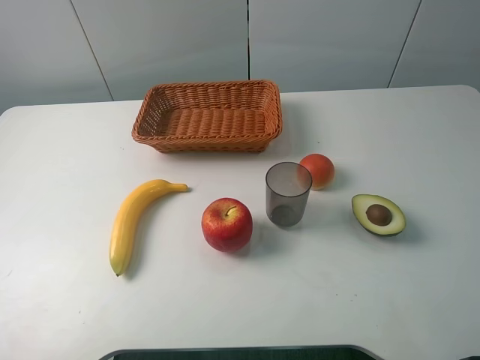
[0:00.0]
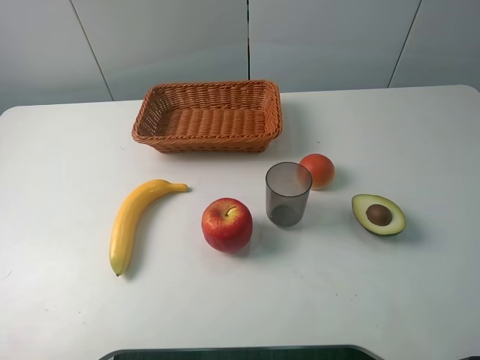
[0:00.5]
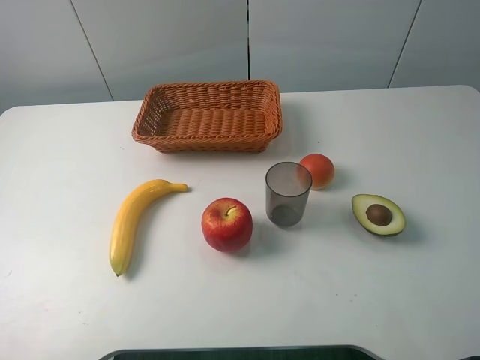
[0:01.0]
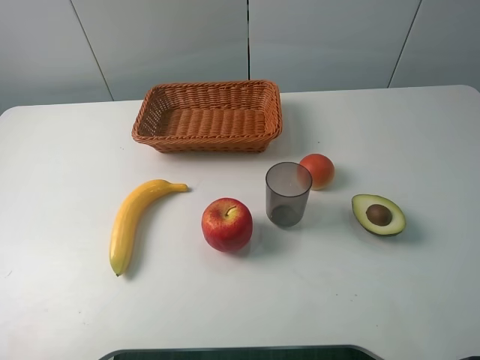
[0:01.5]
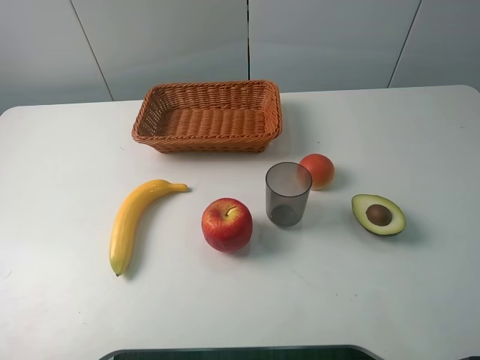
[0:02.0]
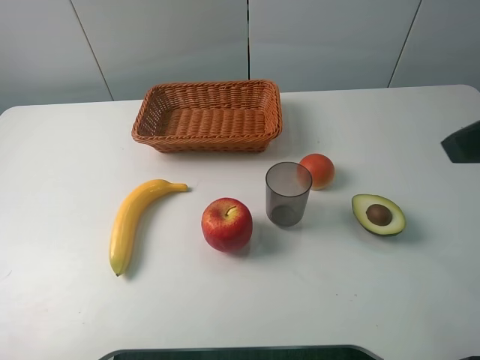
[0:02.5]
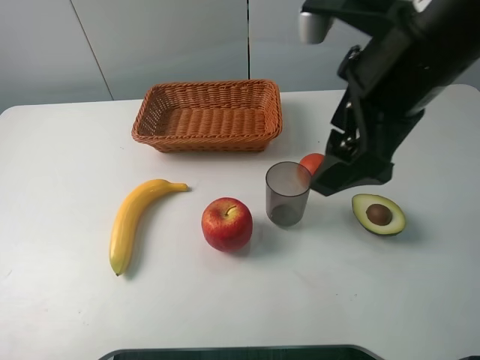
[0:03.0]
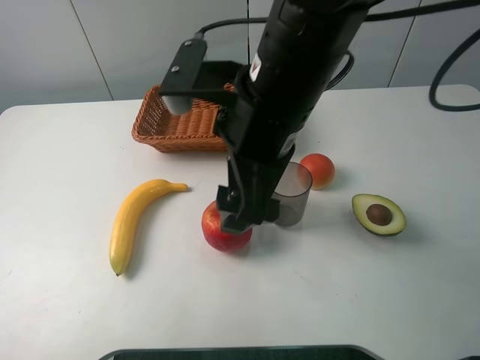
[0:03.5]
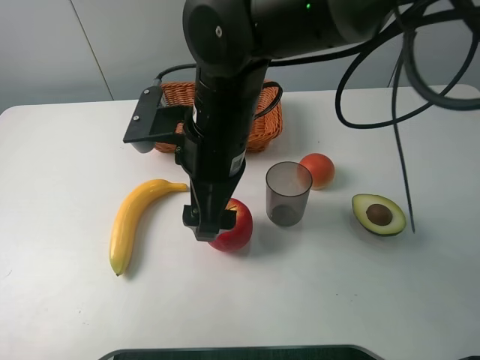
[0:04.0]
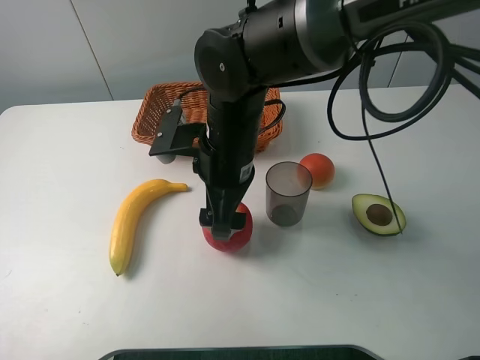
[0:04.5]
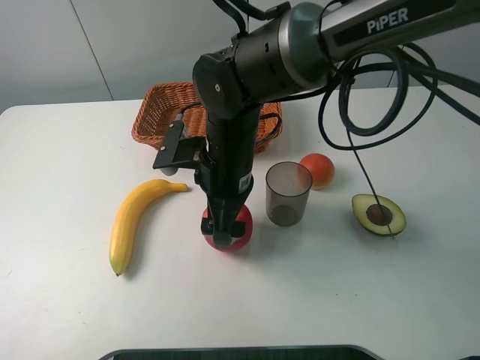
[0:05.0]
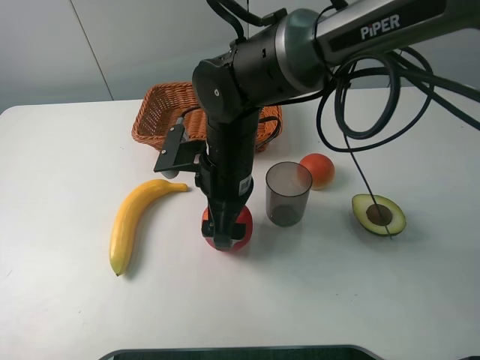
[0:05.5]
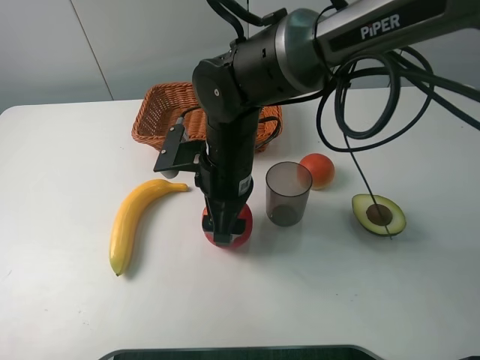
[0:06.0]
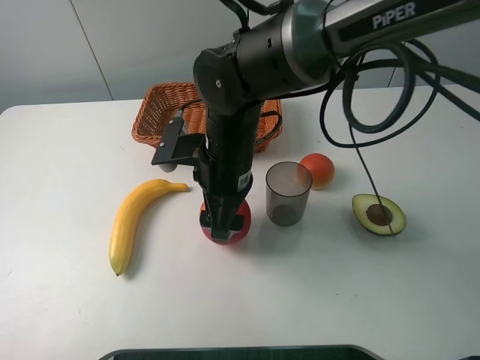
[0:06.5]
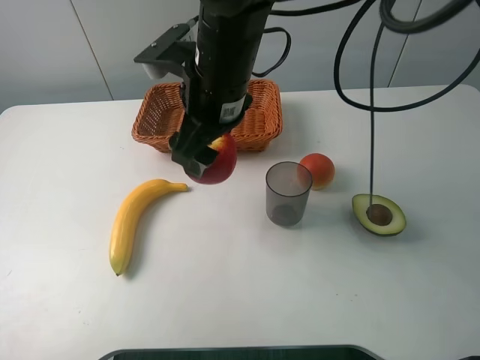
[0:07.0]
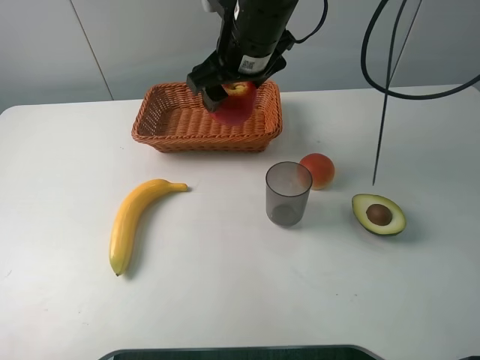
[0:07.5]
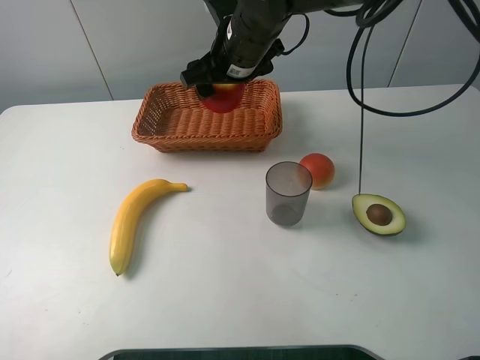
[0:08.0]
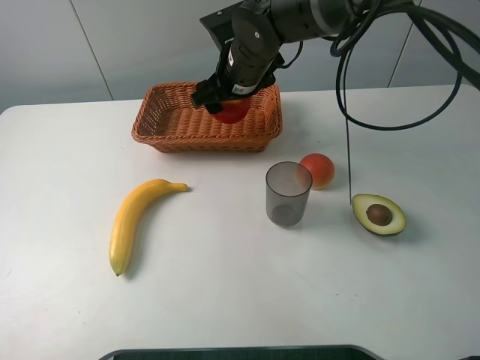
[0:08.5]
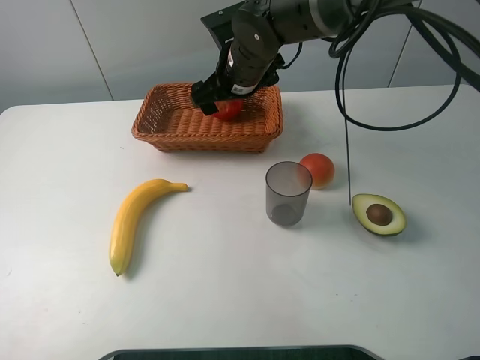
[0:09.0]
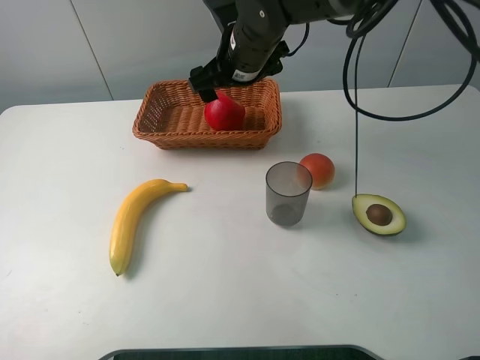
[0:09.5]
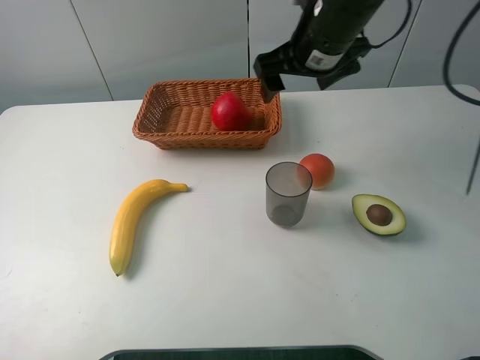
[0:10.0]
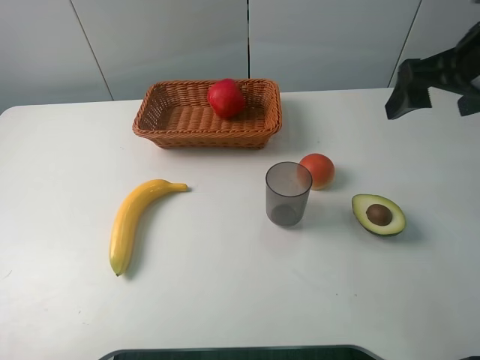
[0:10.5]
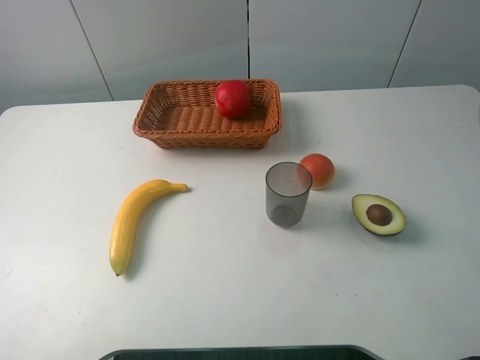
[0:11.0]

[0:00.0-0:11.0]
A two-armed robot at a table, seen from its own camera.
Task of the whole recording: randomly pick up an item from the table and put it in the basket.
Step, 0:00.0 to 0:06.0: Grasp the apple with the right gripper.
Step, 0:06.5 to 0:09.5: Place the apple into the basket with the right gripper.
0:02.0 to 0:03.5: The right gripper is displaced to the left and forward by roughly 35 cm.
0:03.5 to 0:05.5: The right gripper travels downward and forward by some 15 cm.
0:05.5 to 0:07.5: The right gripper travels upward and forward by approximately 15 cm, and closes up.
0:07.5 to 0:09.0: The right gripper moves downward, some 5 cm, and opens up.
0:09.0 to 0:11.0: The right gripper moves backward, to the right and upward, some 40 cm.

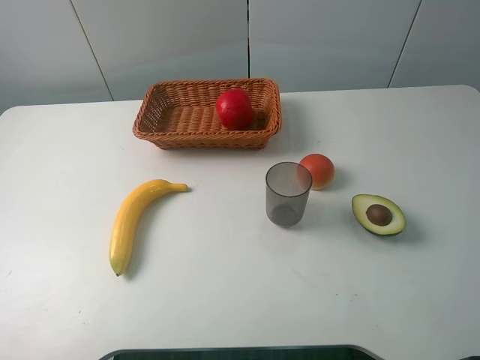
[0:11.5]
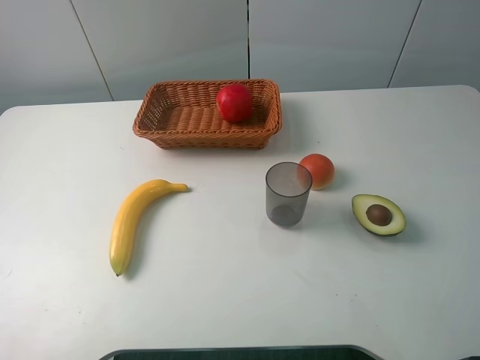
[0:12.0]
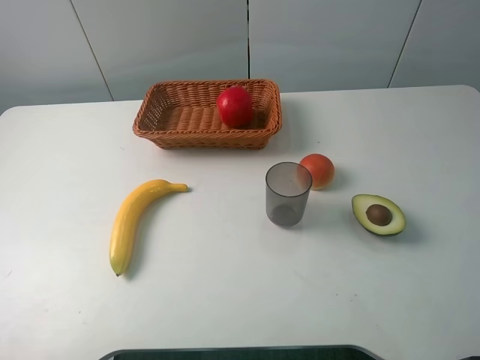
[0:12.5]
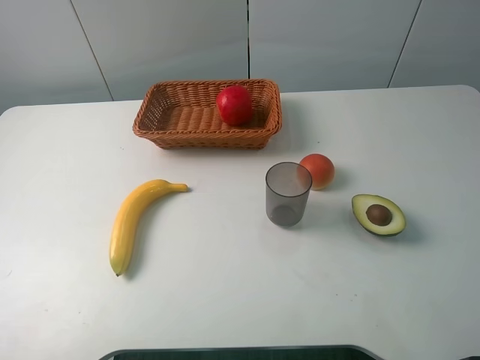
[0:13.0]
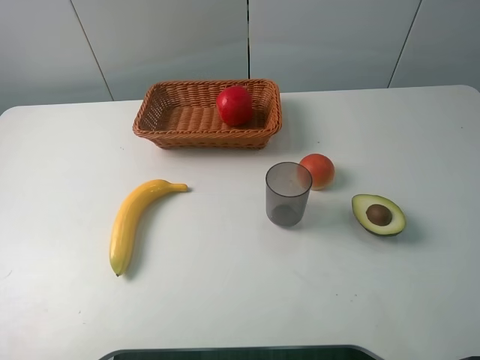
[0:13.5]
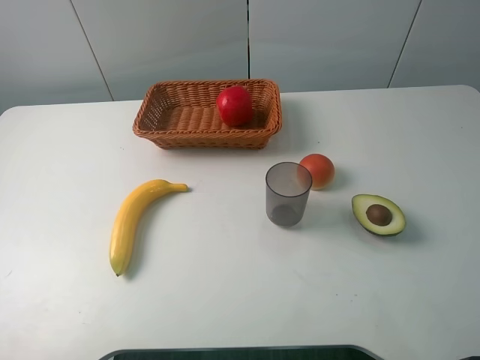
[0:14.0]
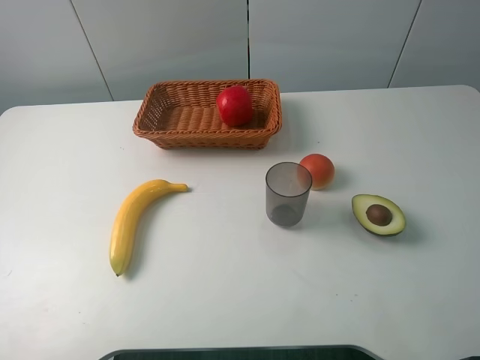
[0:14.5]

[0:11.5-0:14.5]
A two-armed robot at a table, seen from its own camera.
Task of the whole recording: randomly pick up an item from the table and put it in the basket.
0:13.0 to 0:14.5: Neither gripper changes place.

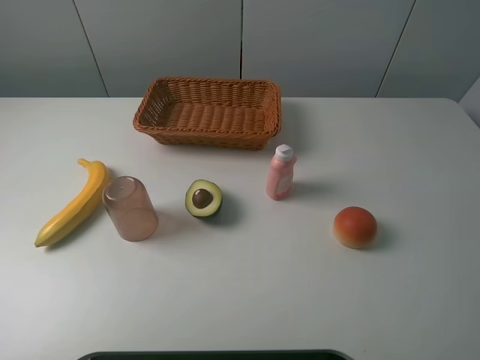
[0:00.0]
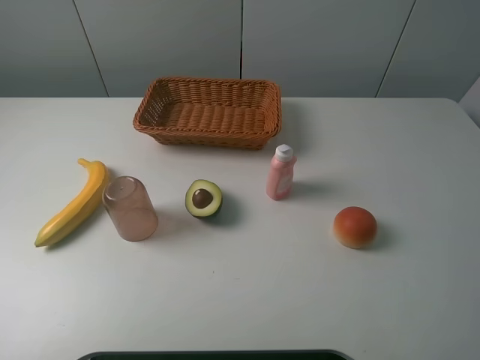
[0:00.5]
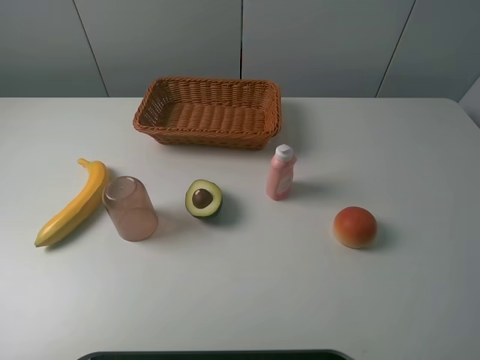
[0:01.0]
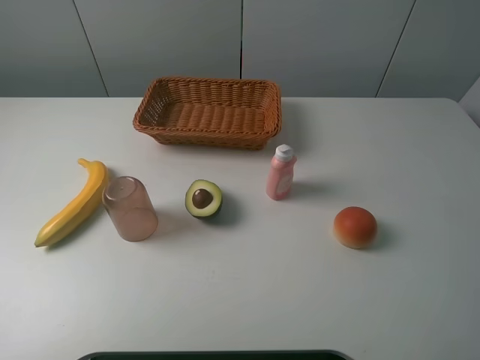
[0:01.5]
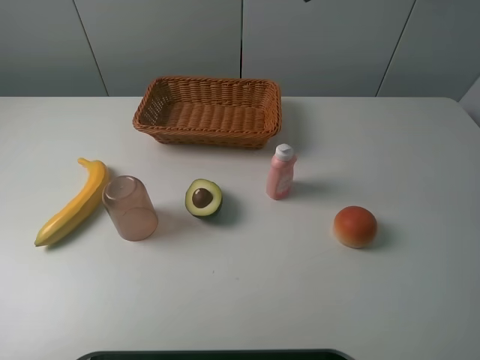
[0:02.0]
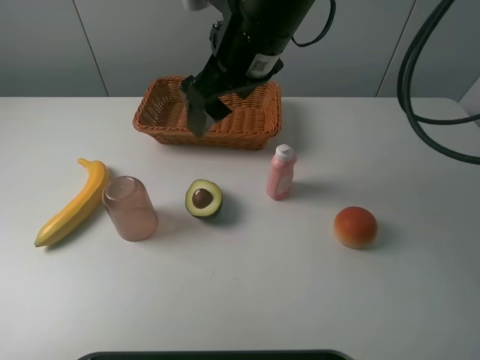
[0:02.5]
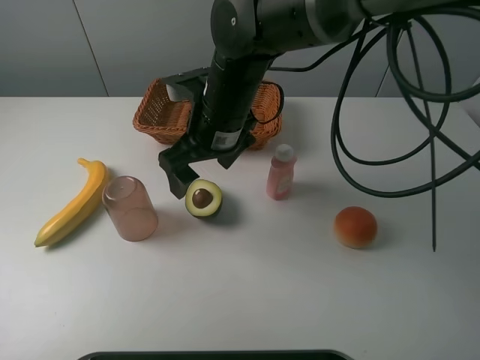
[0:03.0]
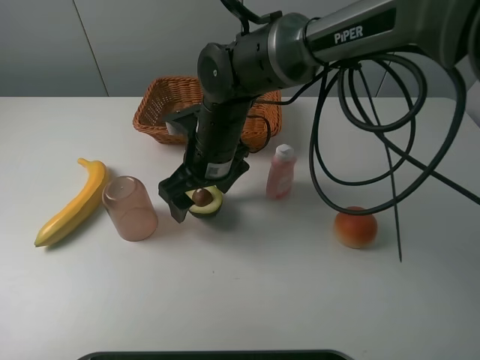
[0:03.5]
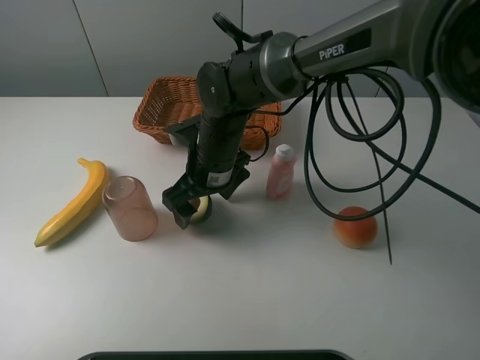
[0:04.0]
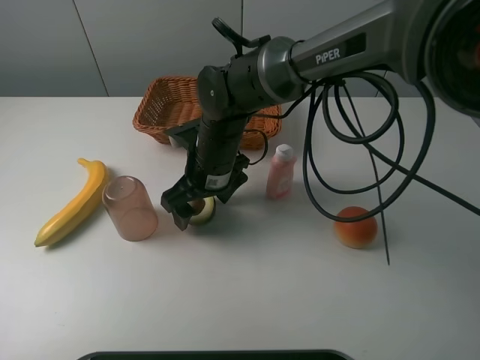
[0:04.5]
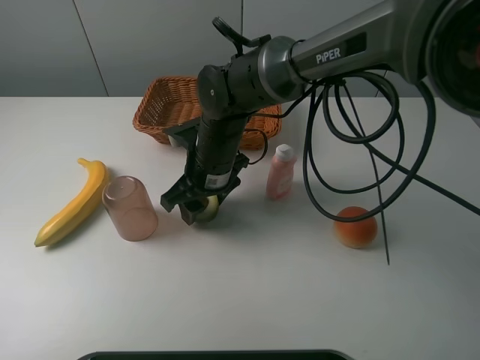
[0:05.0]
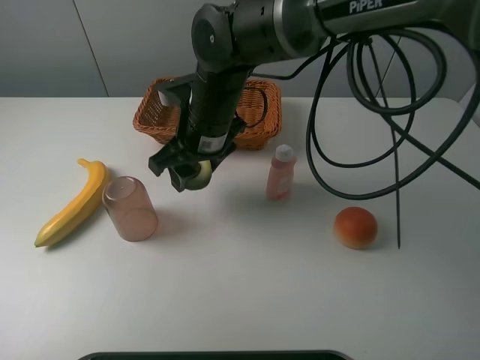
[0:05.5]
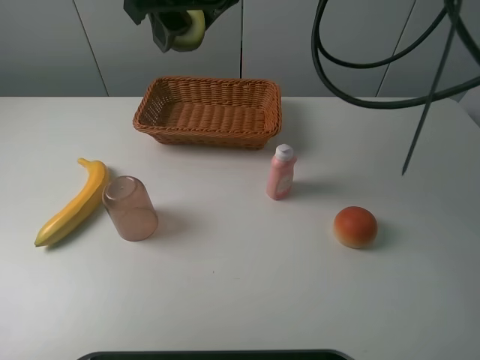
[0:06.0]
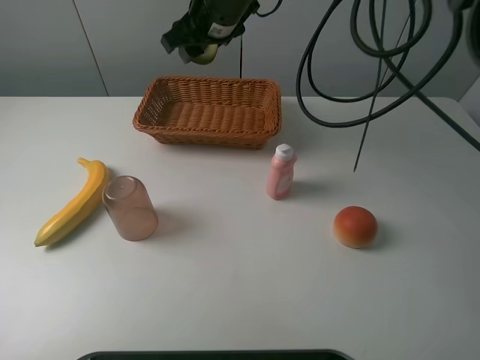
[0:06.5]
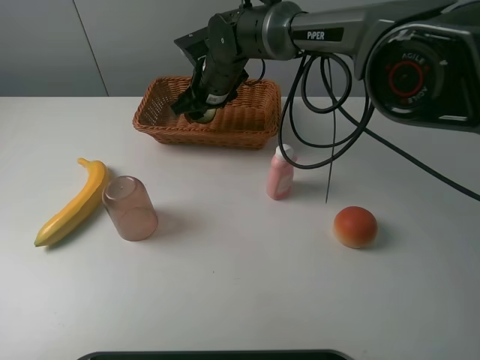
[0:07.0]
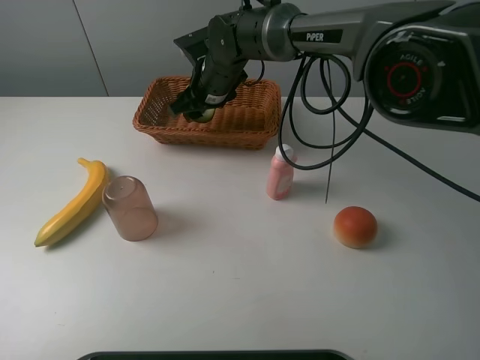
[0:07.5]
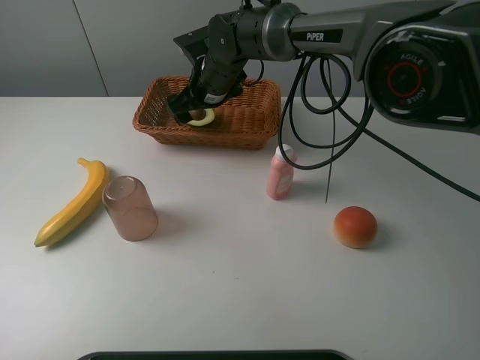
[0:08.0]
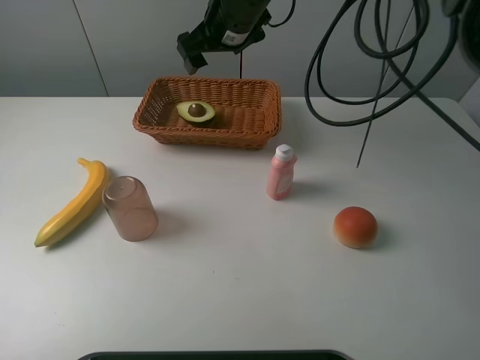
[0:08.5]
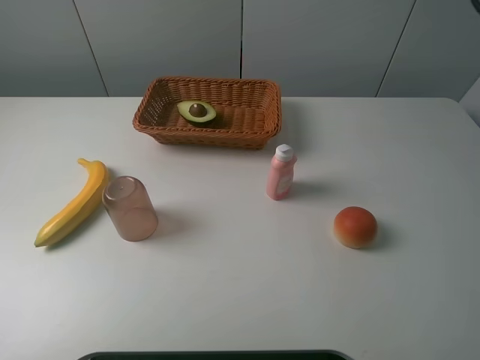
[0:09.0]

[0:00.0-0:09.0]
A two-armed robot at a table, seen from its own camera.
Task of the whole recording: randomly pick up an item from the table and put it in the basket.
Step, 0:00.0 to 0:04.5: Grasp the avocado with the right gripper.
Step, 0:05.0 to 0:08.0: Place the avocado into the basket with the right gripper.
0:02.0 to 0:04.5: The right gripper travels downward and to the left by some 35 cm.
0:04.5 to 0:07.0: The right gripper goes roughly 15 cm forward, moves approximately 25 cm upward and comes back, and closes up.
0:07.0 to 0:09.0: The right gripper heads upward and to the right, covering about 35 cm, and opens.

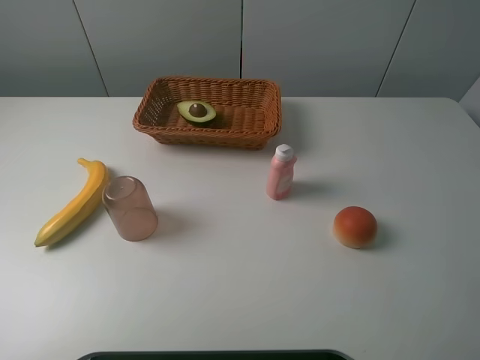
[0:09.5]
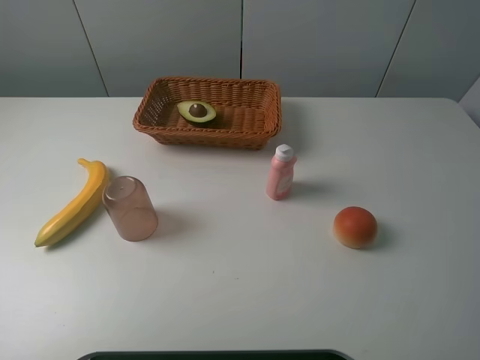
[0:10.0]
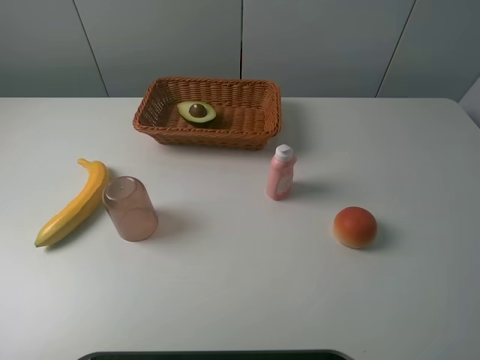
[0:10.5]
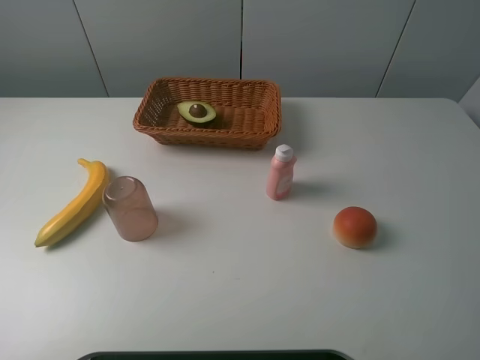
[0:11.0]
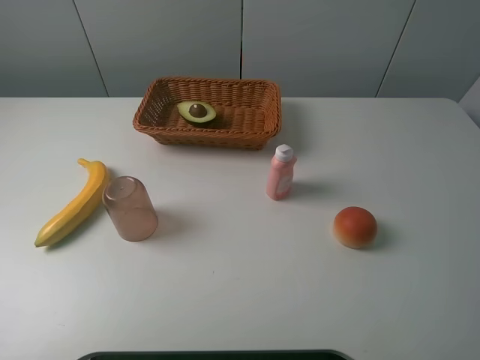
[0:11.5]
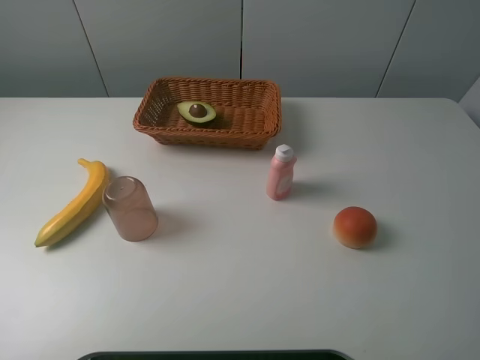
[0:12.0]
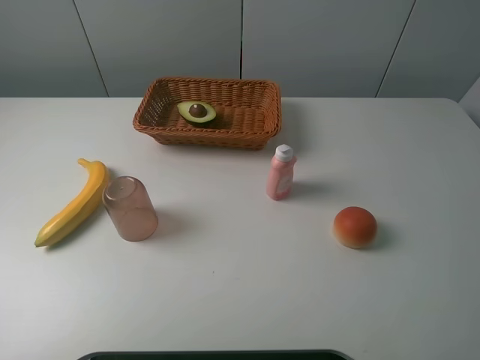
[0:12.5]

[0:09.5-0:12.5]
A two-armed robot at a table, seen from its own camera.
Task of the whole recording: randomly pick up an item from the table and put it in the basket.
0:11.0 to 0:12.5: Both grippers stay about where they are.
